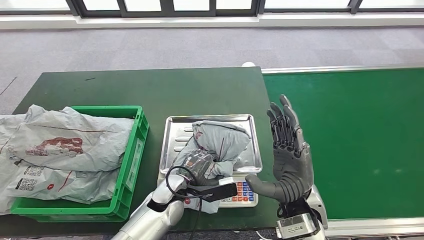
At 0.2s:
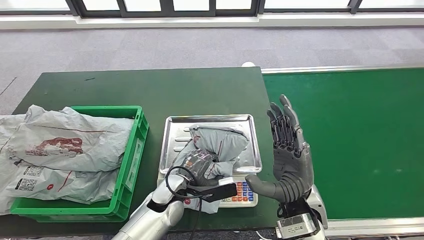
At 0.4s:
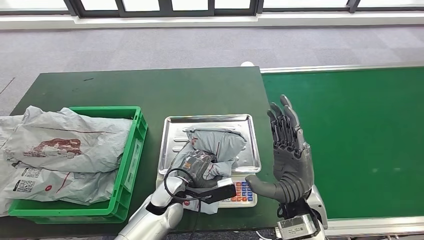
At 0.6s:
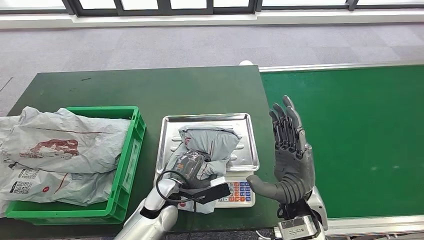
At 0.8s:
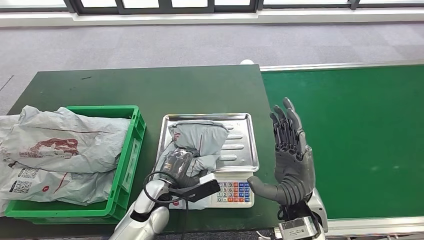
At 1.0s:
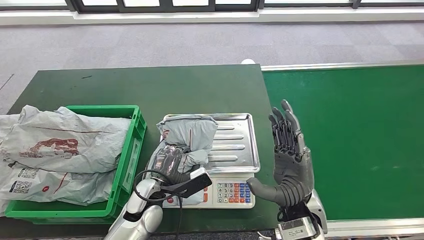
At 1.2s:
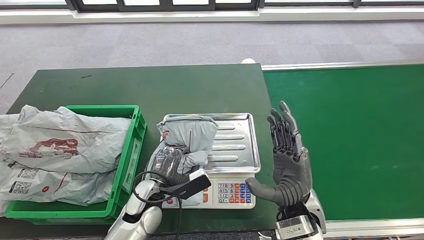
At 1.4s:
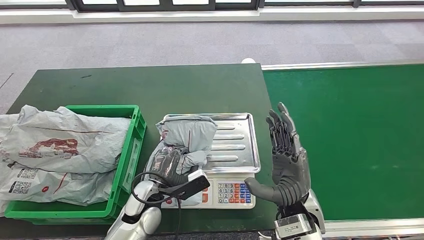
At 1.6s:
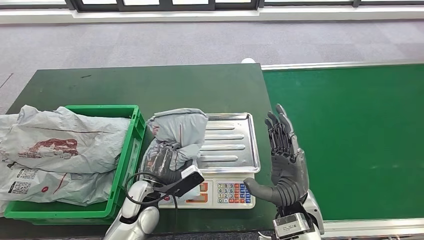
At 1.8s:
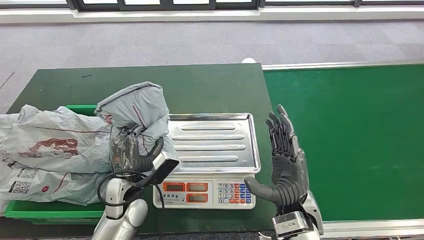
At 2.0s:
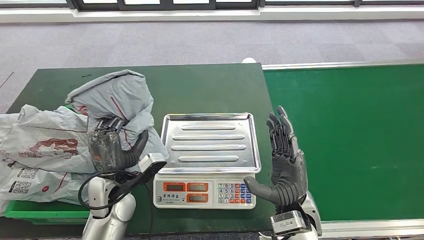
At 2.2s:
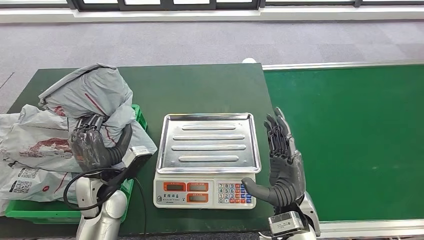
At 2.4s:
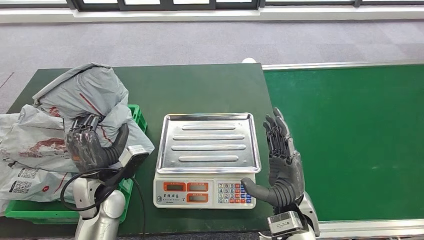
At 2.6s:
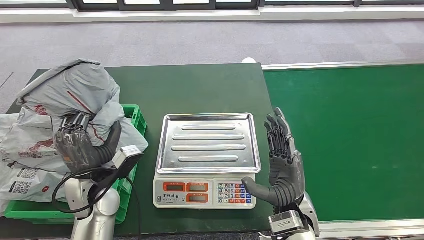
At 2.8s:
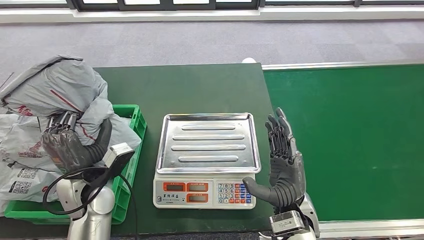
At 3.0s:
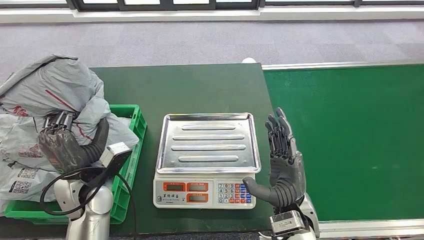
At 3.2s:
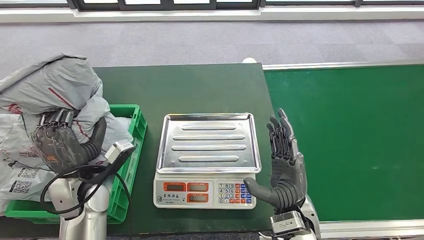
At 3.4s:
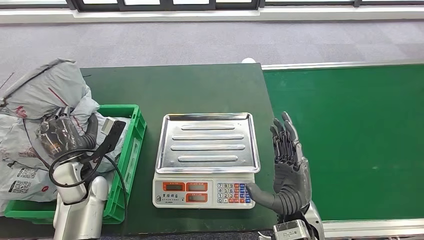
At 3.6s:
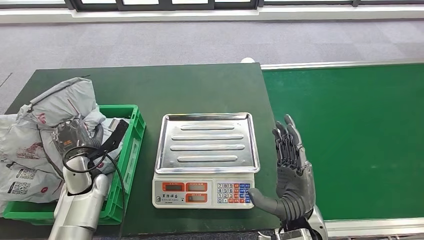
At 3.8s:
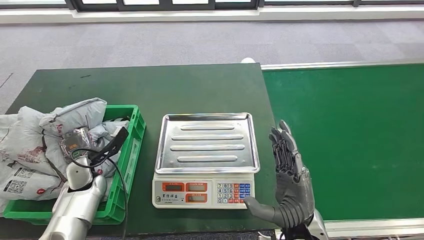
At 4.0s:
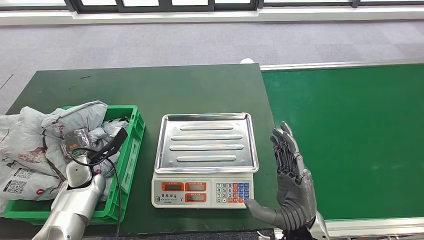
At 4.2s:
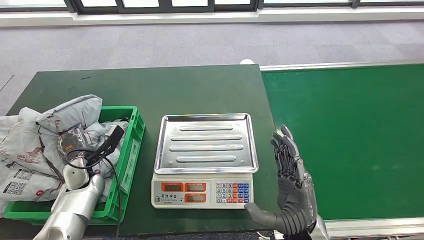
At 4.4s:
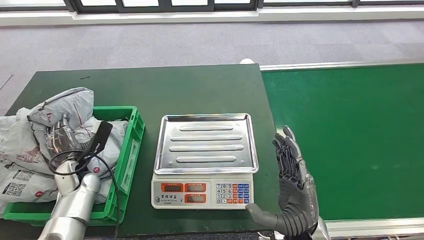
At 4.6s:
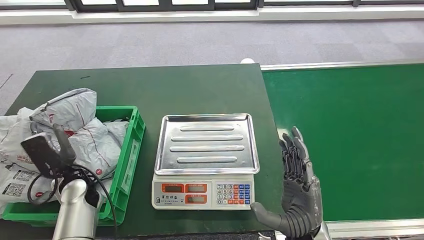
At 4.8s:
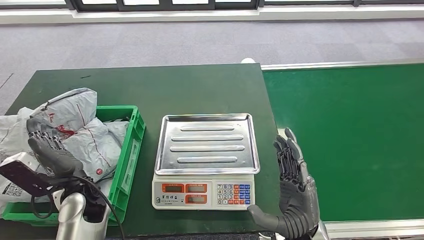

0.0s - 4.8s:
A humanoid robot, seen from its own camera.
Step, 0.0s - 2.4s: Pick up the parcel from the inbound machine.
Step, 2.6s - 4.8s: Place the parcel into the delivery box.
